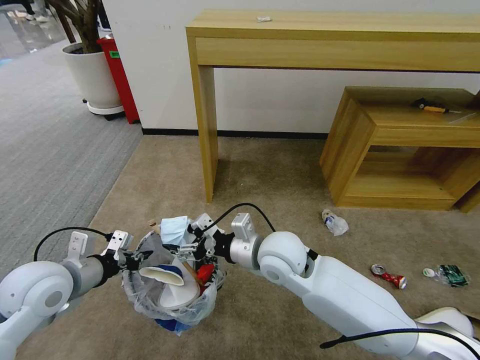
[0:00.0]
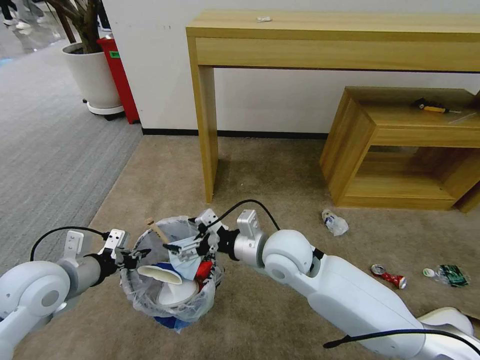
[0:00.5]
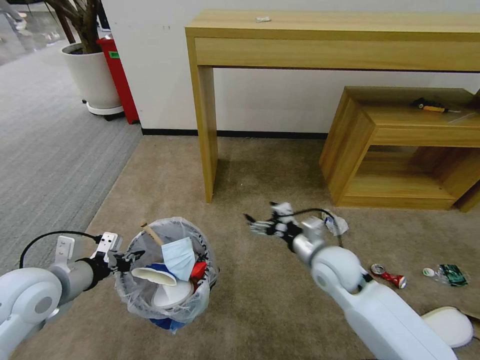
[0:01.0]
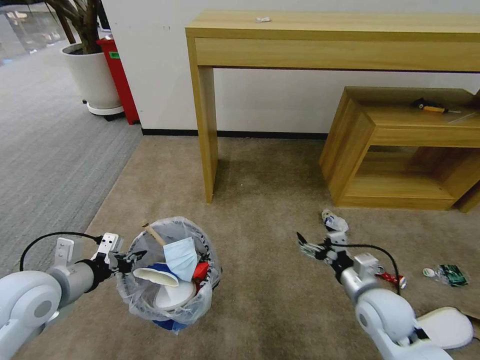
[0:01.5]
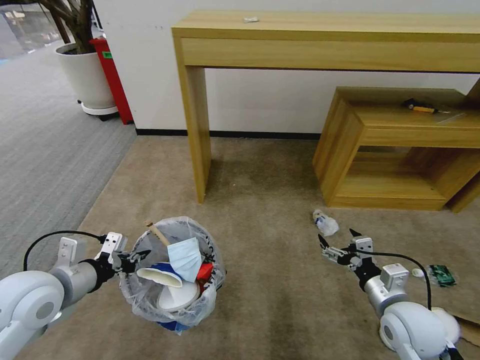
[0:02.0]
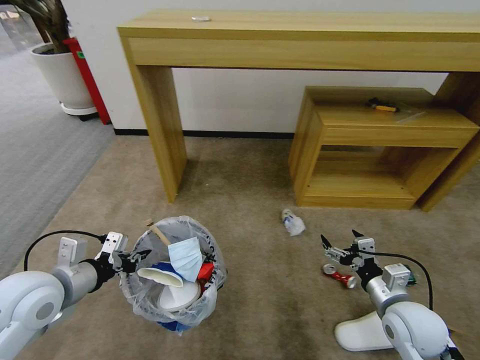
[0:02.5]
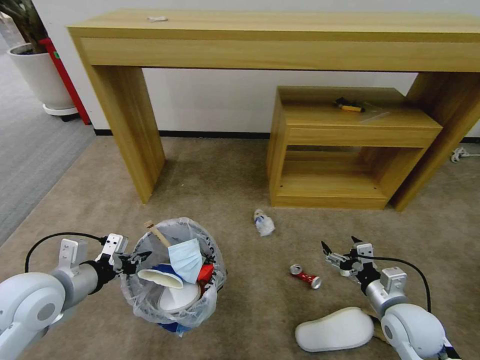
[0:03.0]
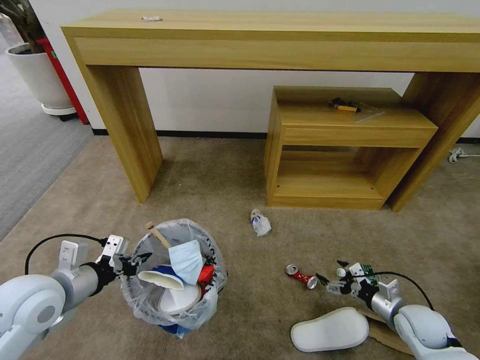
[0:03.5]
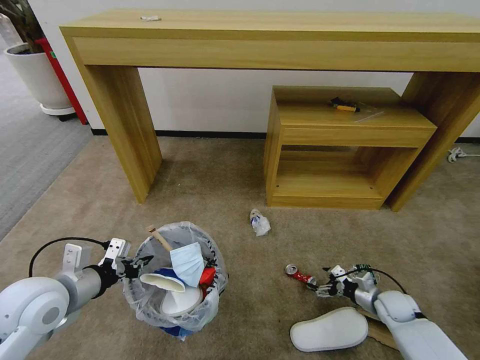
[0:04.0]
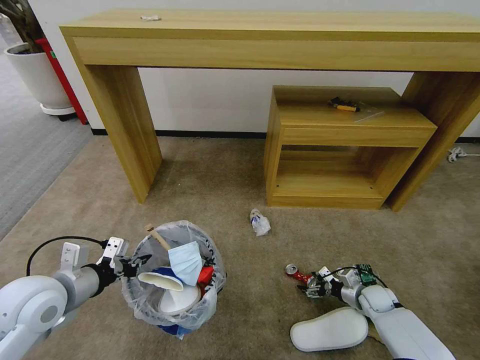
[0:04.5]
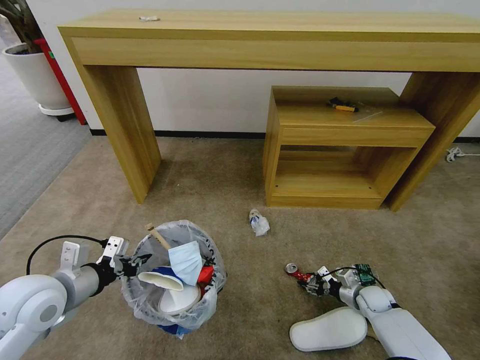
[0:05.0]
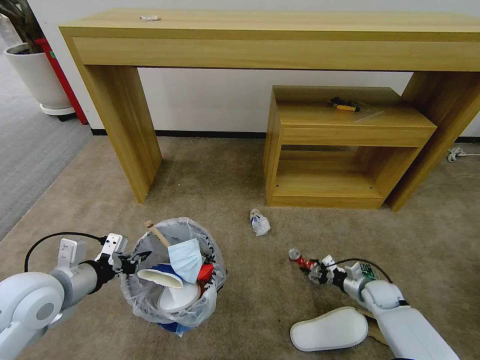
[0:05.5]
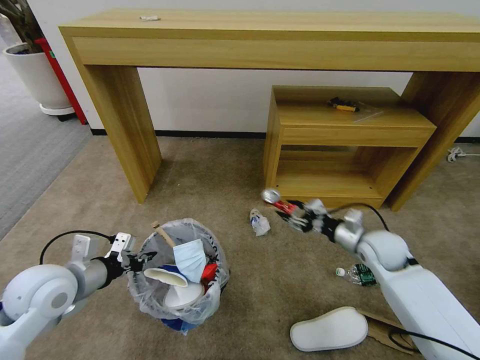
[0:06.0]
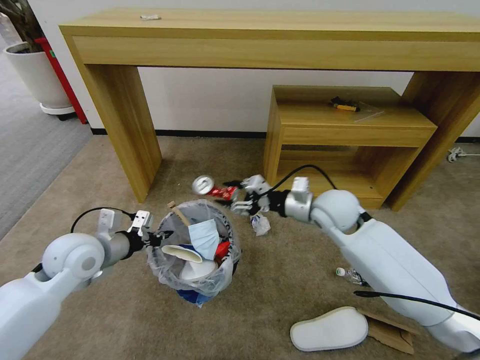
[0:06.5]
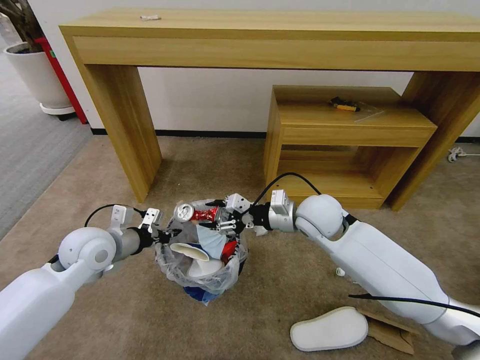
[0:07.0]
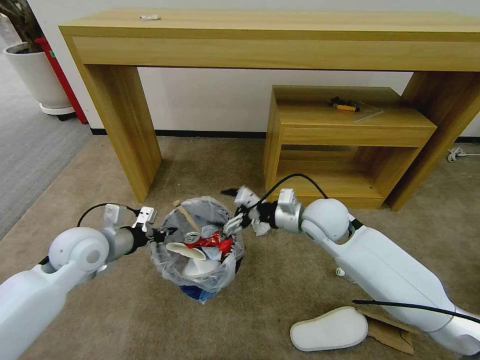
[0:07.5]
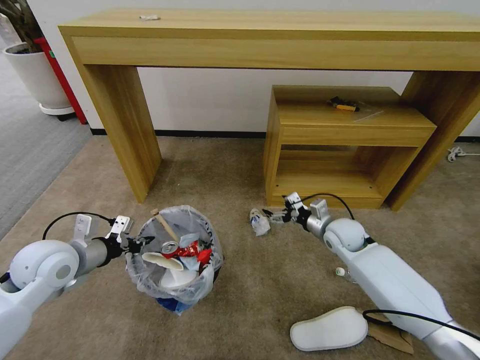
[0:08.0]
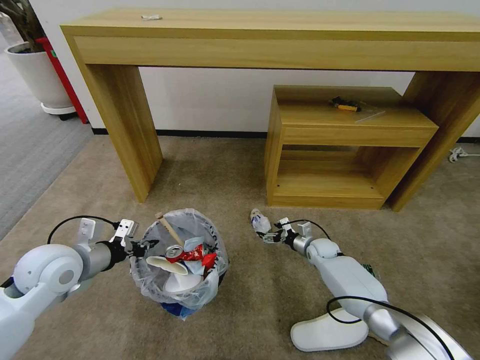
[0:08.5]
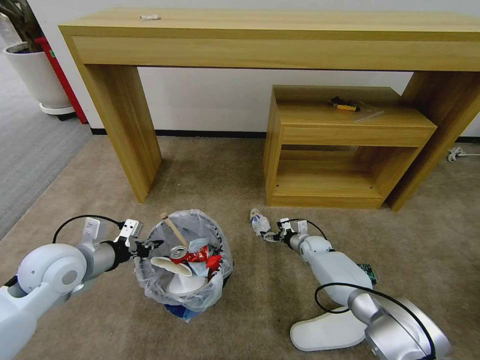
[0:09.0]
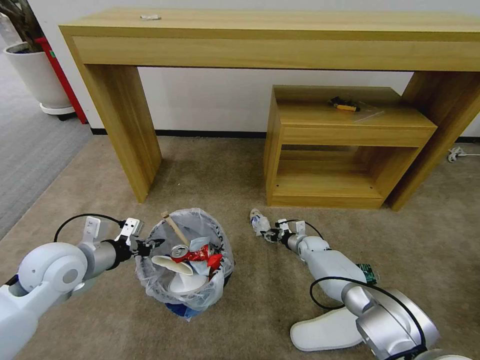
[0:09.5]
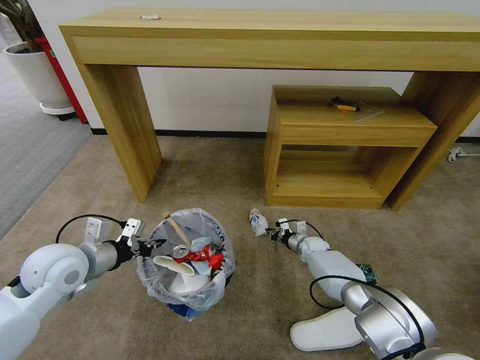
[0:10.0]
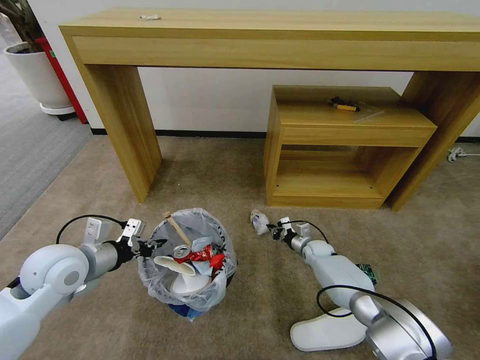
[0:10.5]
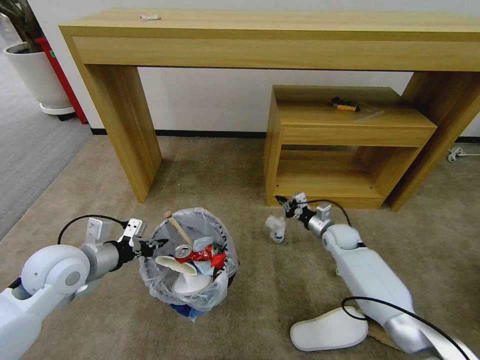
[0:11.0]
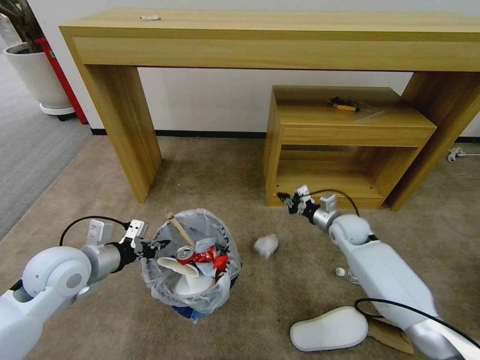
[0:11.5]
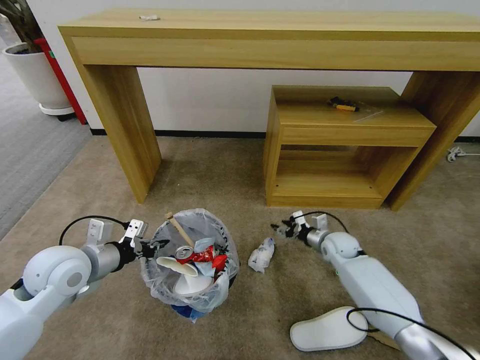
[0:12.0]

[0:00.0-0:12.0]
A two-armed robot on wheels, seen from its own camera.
Task of the whole recording: Pick up the trash bin and place the garbage on the floor into it.
0:00.0 to 0:02.0: The right gripper is displaced to the right and backward by roughly 25 cm, and opens up.
0:02.0 to 0:04.0: The right gripper travels downward, to the right and forward by about 20 cm.
0:04.0 to 0:06.0: The right gripper goes roughly 20 cm upward and to the left, and closes its fingers.
0:06.0 to 0:08.0: The right gripper goes some 5 cm forward, goes to the left and returns, some 15 cm each way, and opens up.
0:08.0 to 0:10.0: The right gripper shifts some 20 cm downward, and closes.
0:10.0 to 0:12.0: The right gripper goes some 10 cm upward, and opens up.

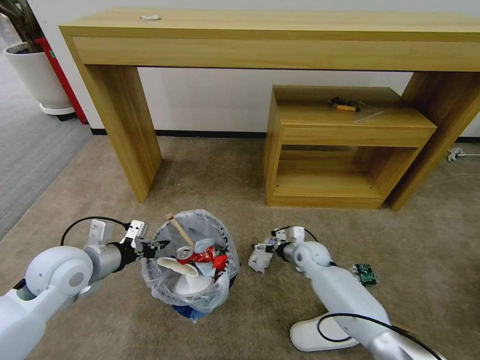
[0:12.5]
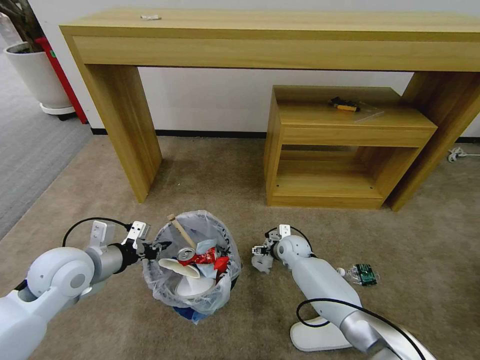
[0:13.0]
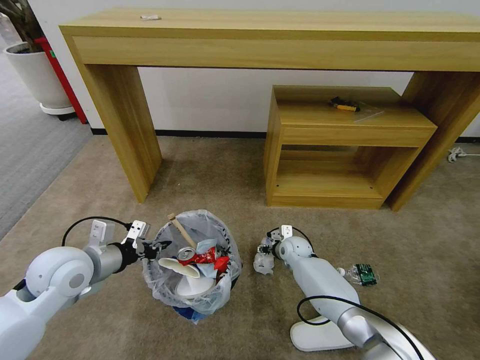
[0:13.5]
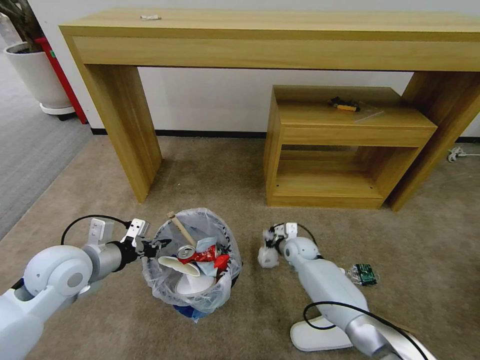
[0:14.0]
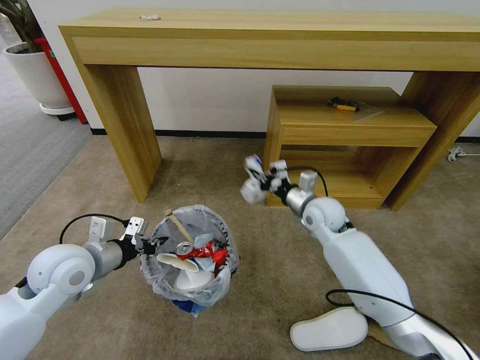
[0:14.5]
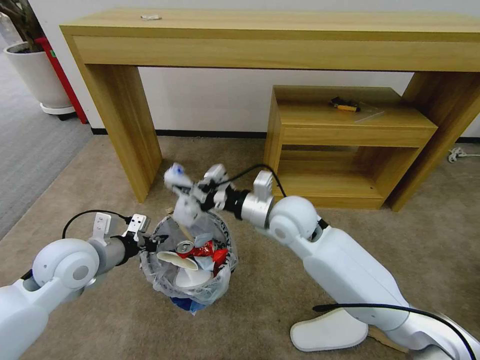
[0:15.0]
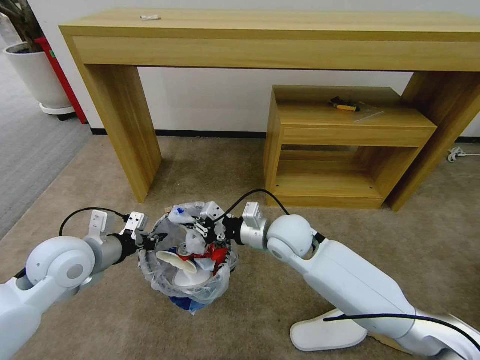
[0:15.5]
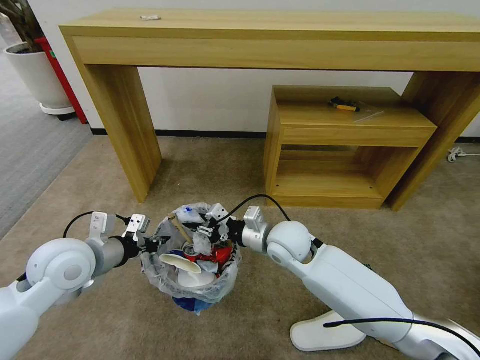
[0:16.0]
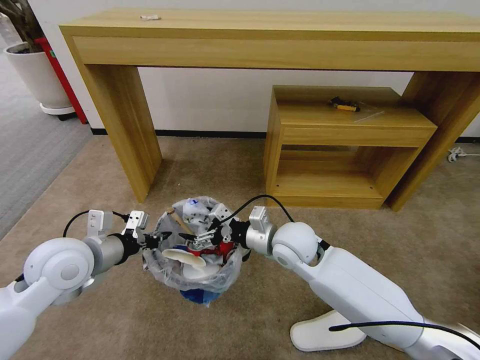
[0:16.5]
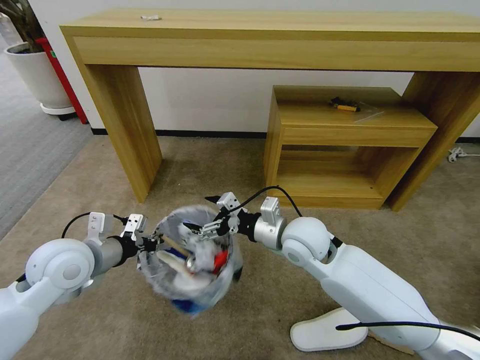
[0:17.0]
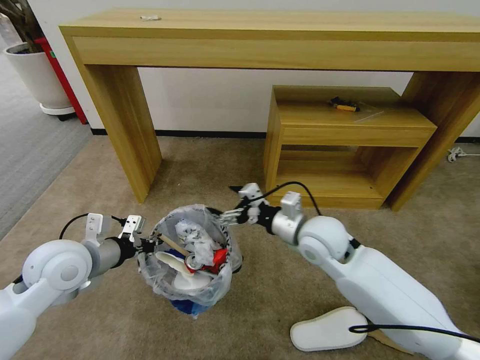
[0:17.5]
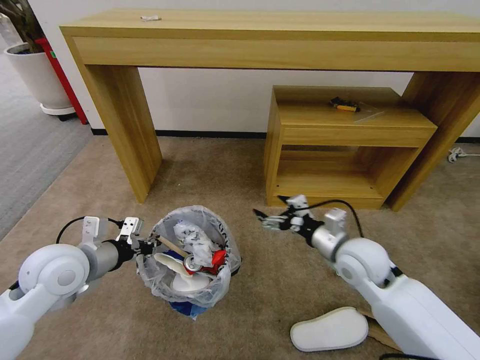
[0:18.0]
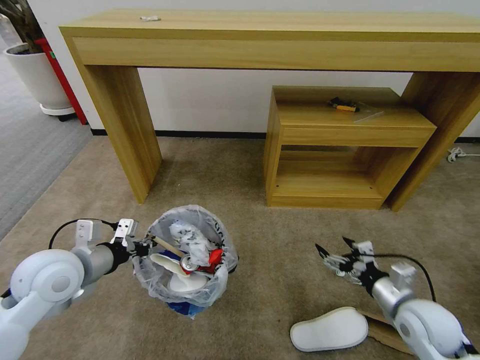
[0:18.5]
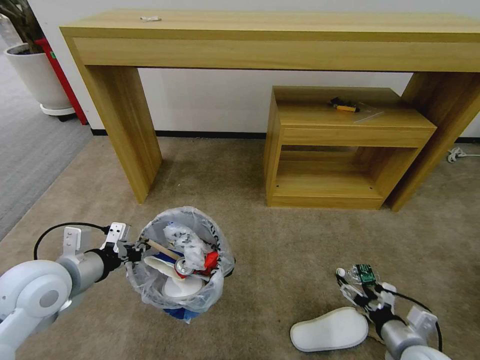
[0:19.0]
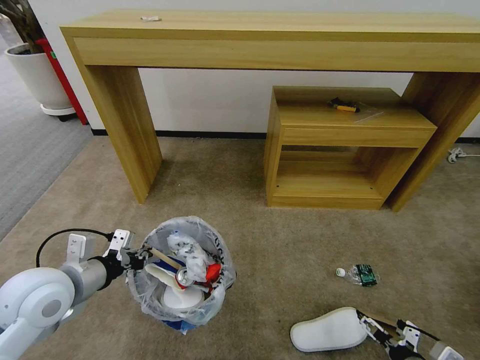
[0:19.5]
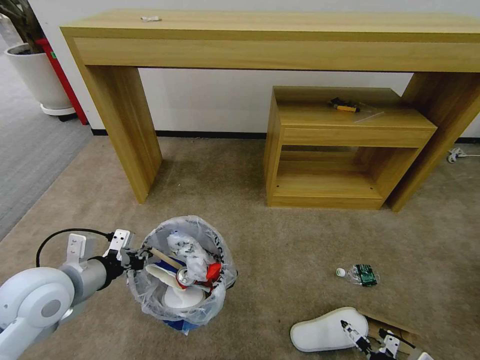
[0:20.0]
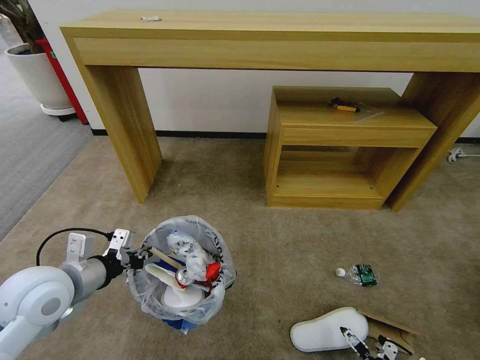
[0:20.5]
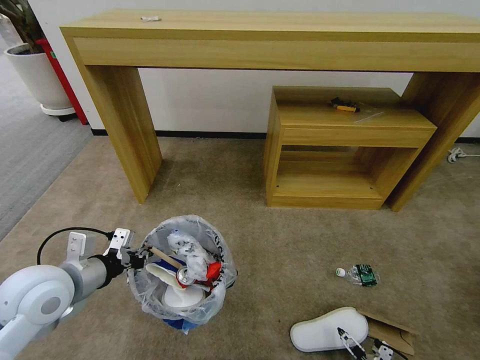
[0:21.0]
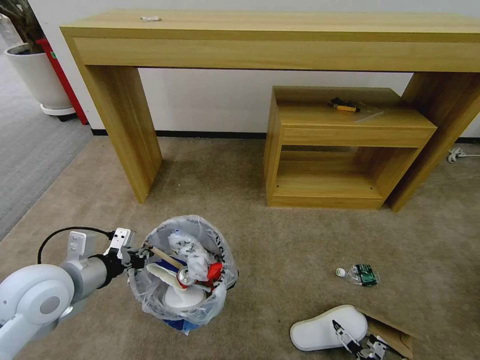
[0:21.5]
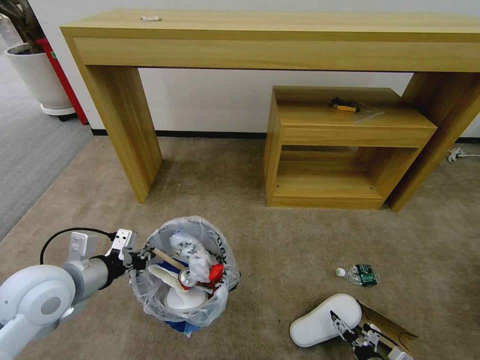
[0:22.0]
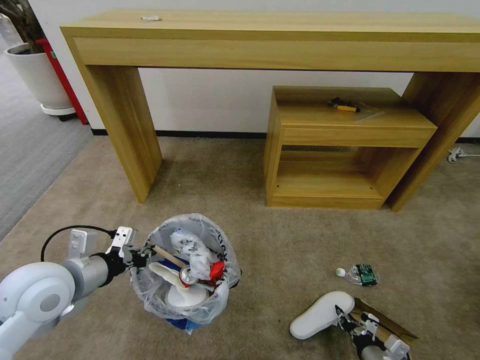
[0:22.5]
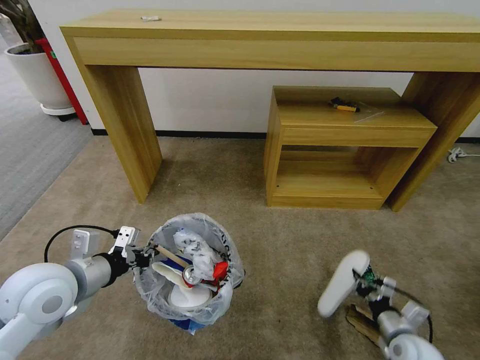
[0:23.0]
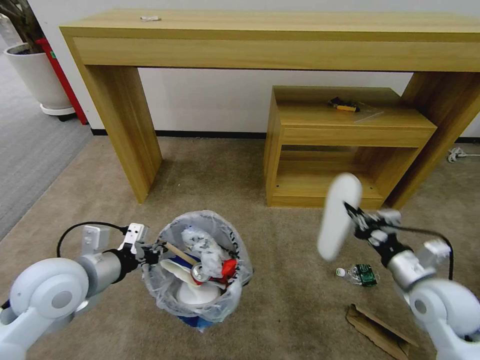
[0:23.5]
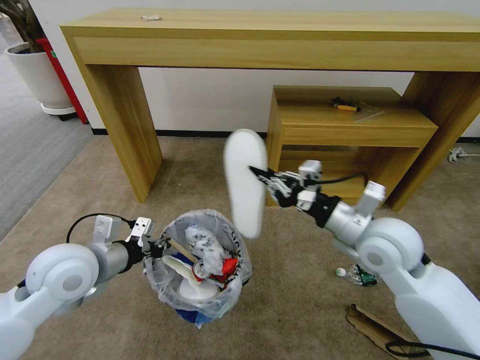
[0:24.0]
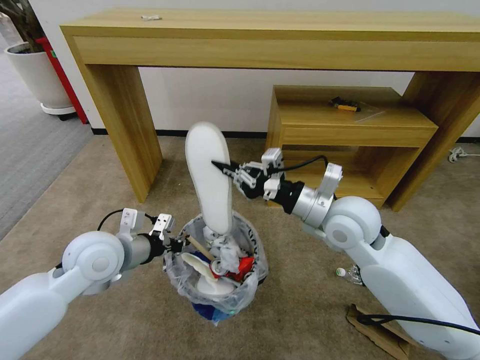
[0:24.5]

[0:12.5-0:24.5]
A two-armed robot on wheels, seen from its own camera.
Task of the whole recording: Pick up the trash bin and place the garbage on the floor into it.
0:12.5 to 0:14.5: The right gripper travels upward by roughly 20 cm, and closes.
0:14.5 to 0:16.5: The right gripper travels to the left and backward by approximately 15 cm, and opens up.
0:16.5 to 0:18.5: The right gripper heads to the right and backward, covering approximately 30 cm.
0:18.5 to 0:20.5: The right gripper shifts roughly 20 cm backward and downward.
0:20.5 to 0:22.5: The right gripper travels downward by about 5 cm, and closes.
0:22.5 to 0:24.5: The right gripper shifts about 50 cm upward, forward and to the left, while the left gripper is displaced forward and to the right by roughly 10 cm.

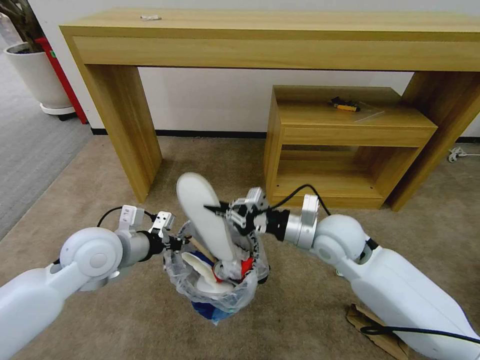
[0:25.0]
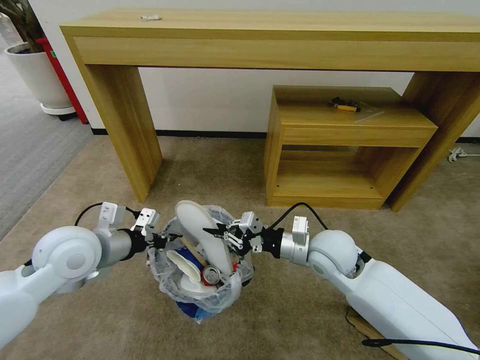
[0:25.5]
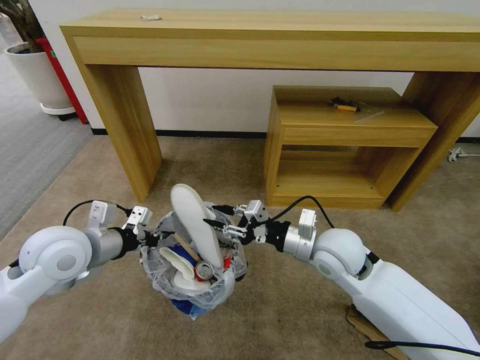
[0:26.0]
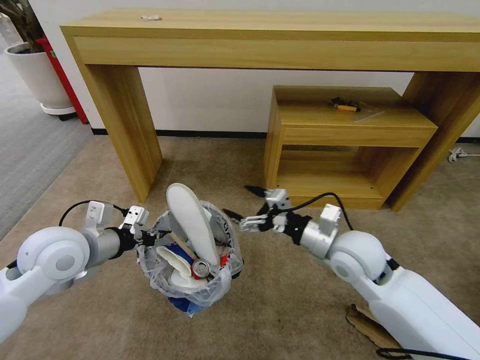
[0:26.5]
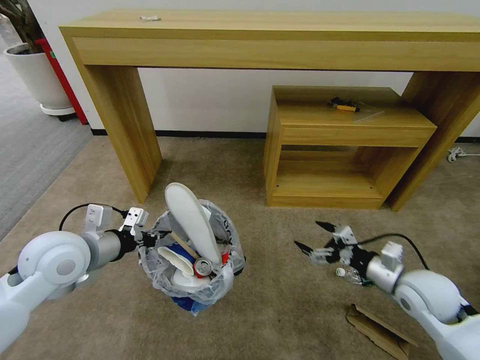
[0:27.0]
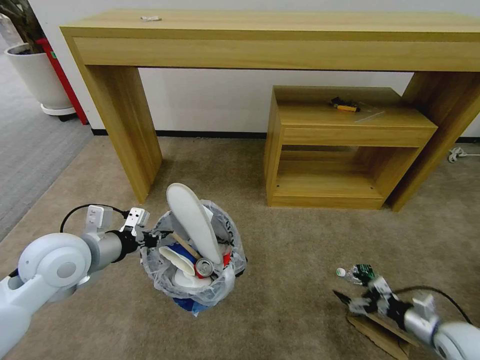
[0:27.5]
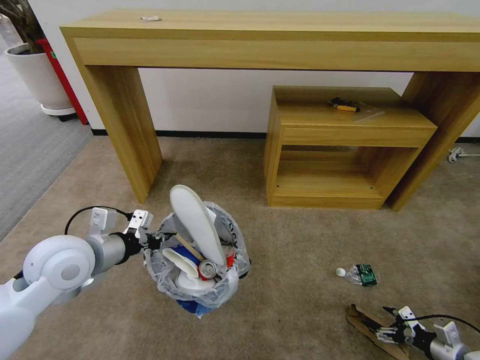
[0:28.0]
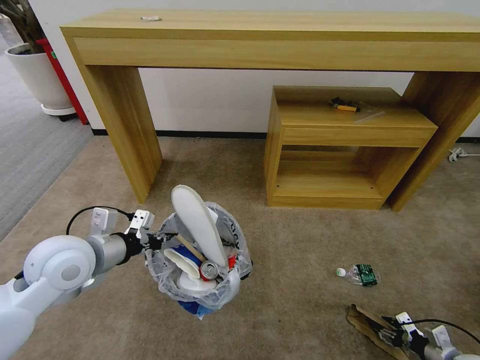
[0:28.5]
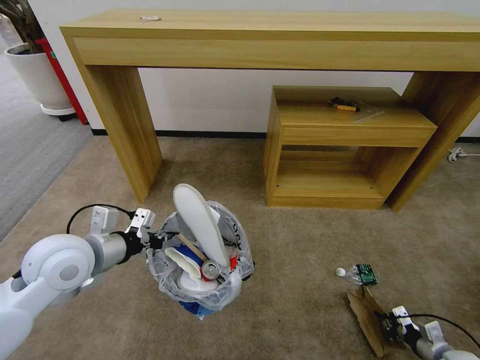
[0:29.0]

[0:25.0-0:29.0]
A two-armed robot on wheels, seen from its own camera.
Task of the whole recording: Pick up the trash bin and place the garbage on the floor into it.
0:25.0 to 0:27.0: The left gripper moves roughly 5 cm. Meanwhile the right gripper is displaced to the right, downward and backward by roughly 20 cm, and opens its fingers.
0:27.0 to 0:29.0: The right gripper heads downward, to the right and backward, covering some 30 cm, and closes up.
